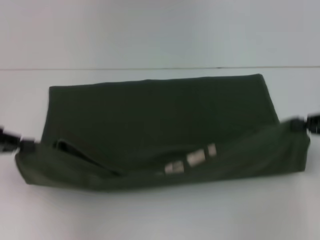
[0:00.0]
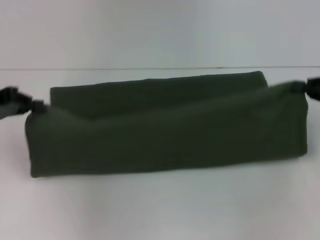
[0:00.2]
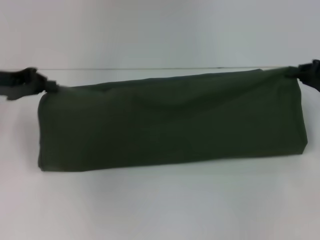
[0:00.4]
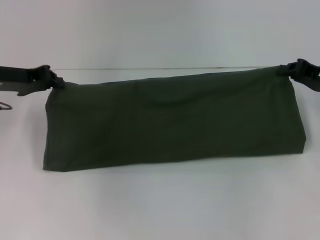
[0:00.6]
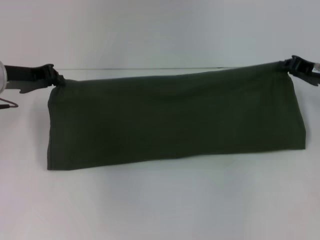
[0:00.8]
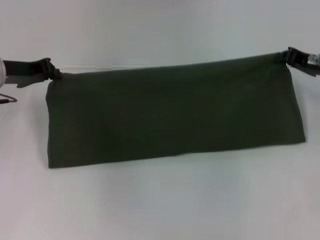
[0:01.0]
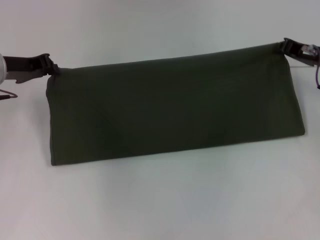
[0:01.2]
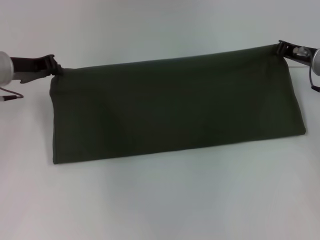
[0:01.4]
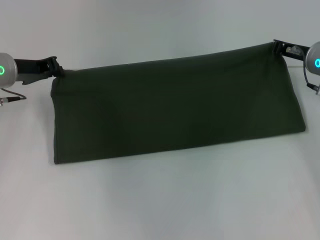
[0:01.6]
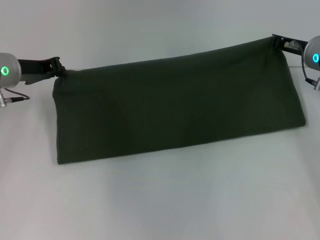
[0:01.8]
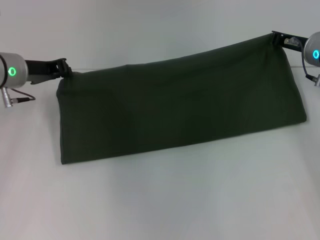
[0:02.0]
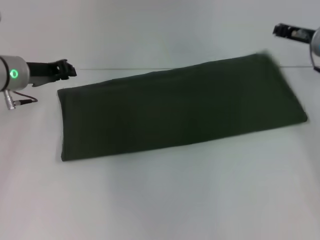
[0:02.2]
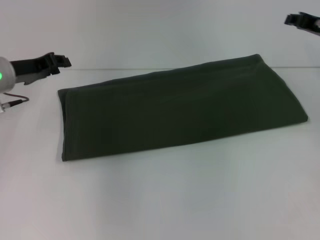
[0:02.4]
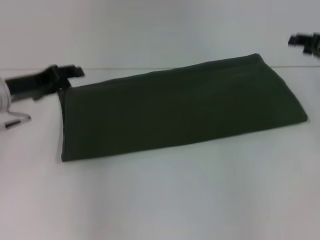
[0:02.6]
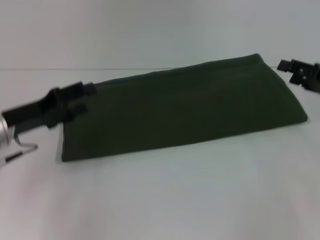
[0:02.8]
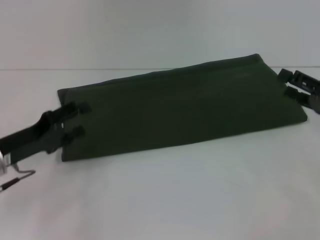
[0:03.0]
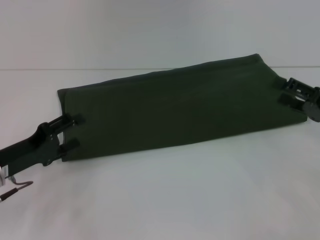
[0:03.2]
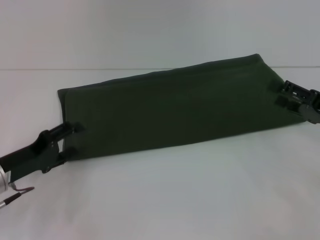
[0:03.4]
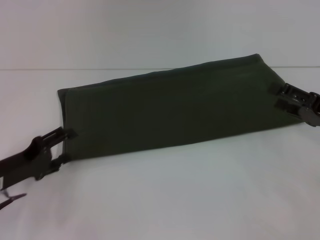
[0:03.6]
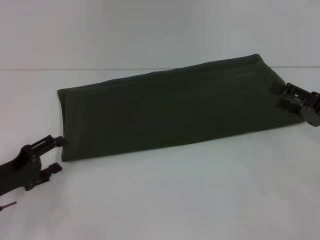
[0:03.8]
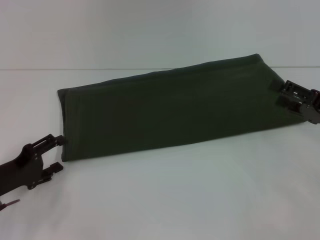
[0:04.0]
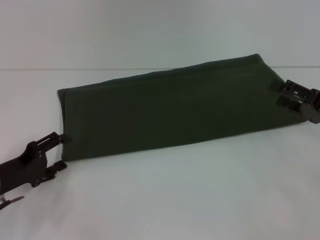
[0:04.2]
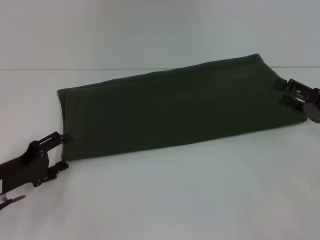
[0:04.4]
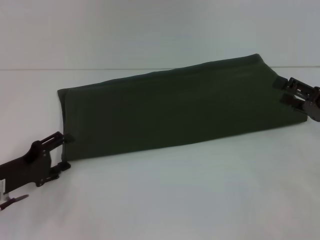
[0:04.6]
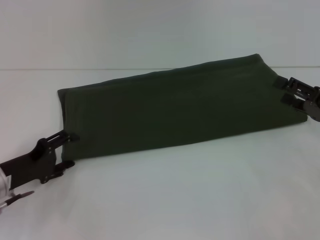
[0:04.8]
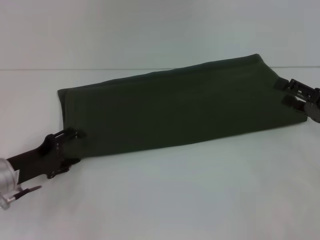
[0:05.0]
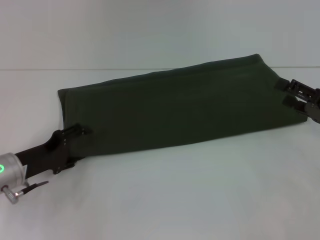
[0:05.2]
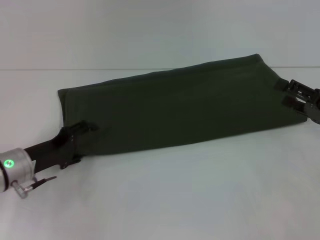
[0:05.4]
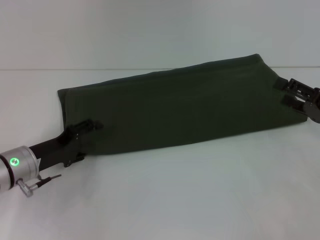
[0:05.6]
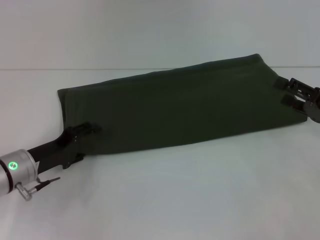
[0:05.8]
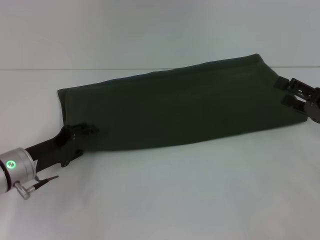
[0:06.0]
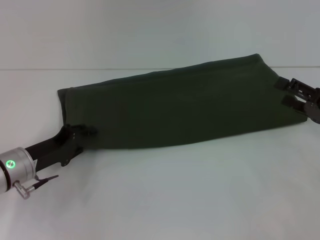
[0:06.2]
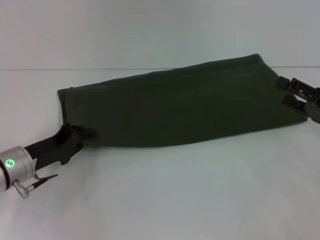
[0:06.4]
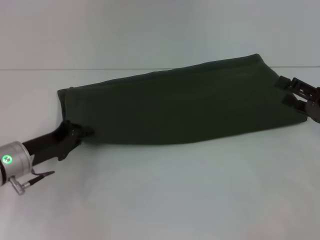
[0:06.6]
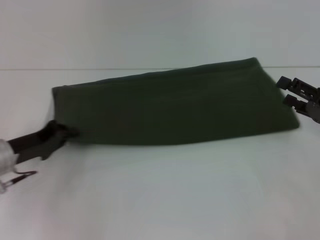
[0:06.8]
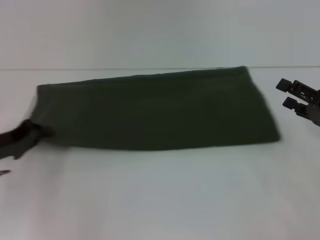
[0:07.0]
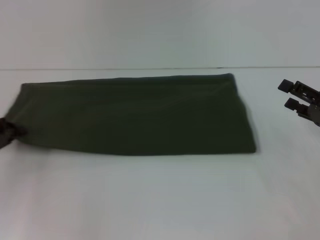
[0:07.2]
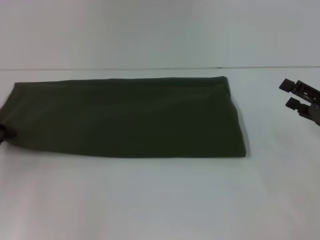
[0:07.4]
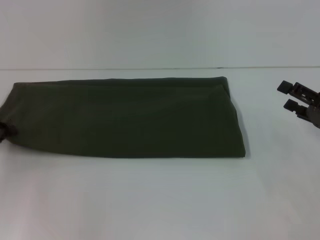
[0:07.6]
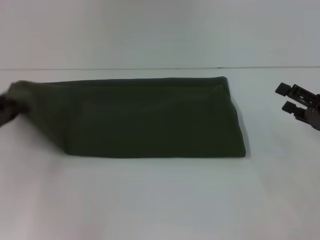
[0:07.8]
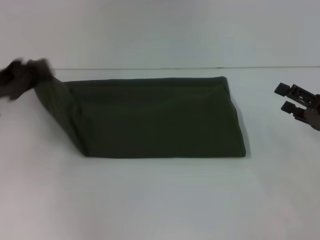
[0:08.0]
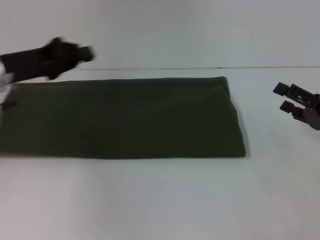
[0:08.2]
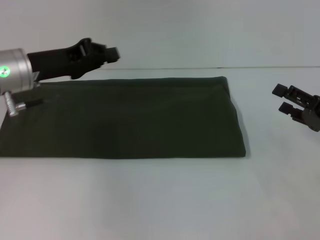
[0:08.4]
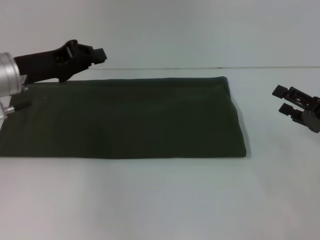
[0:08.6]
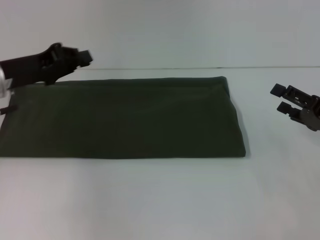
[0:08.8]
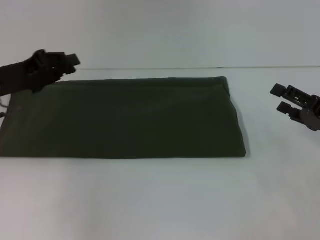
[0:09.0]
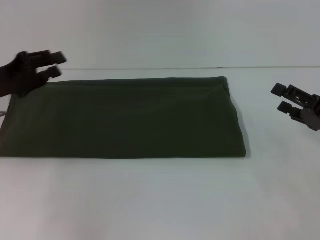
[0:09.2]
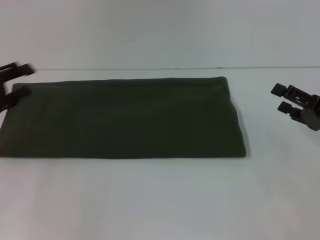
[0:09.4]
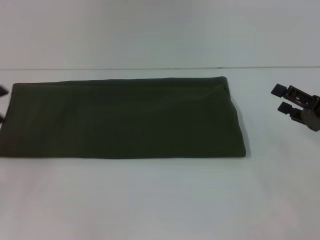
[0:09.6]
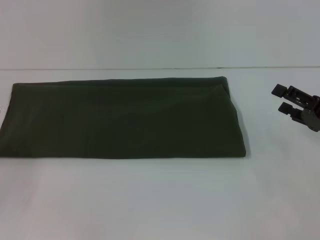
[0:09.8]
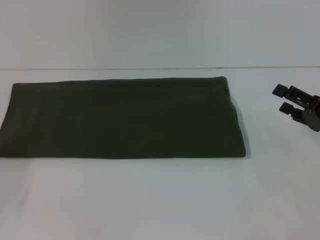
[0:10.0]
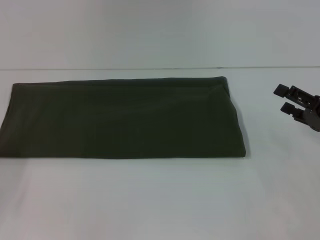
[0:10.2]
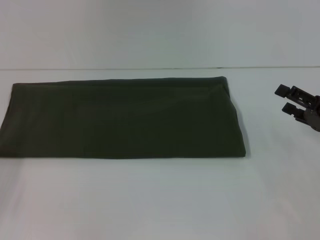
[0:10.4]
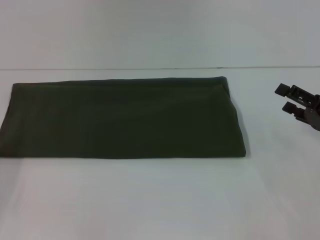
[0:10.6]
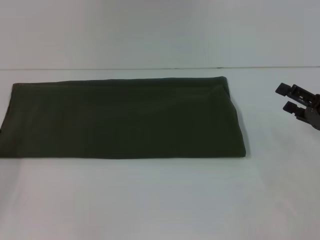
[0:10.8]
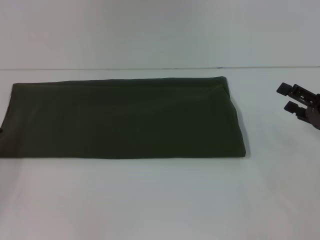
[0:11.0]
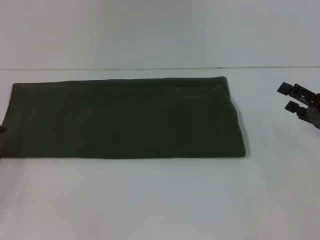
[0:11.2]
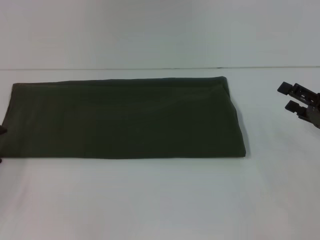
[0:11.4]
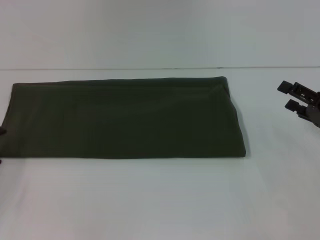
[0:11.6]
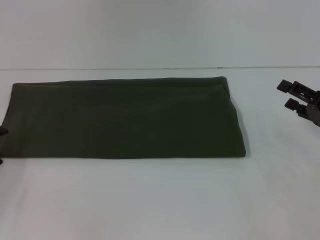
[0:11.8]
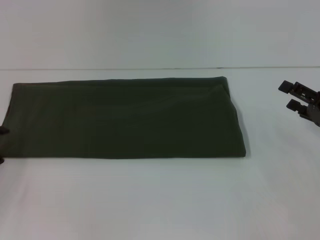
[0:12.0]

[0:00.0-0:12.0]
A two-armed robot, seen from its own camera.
Step, 0:00.0 to 0:02.2: Fold the clothes with your right hand.
0:00.0 to 0:01.6: The left gripper shifts some 15 cm forward and to the right. Meanwhile the right gripper goes about 15 cm forward and to the left.
0:01.6 to 0:03.0: The left gripper travels backward and downward by approximately 15 cm, and opens. The right gripper is displaced backward and to the right by approximately 15 cm, and opens its fingers.
0:03.0 to 0:04.4: The grippers make only small movements.
0:04.4 to 0:06.0: The left gripper shifts by roughly 5 cm.
0:06.0 to 0:07.6: The left gripper heads to the left, covering approximately 10 cm, and closes up.
0:07.6 to 0:09.0: The left gripper moves upward and to the right, some 10 cm.
0:09.0 to 0:10.4: The left gripper moves to the left, backward and downward, about 15 cm, and opens.
0:10.4 to 0:12.0: The grippers stay close to where they were, moving slightly.

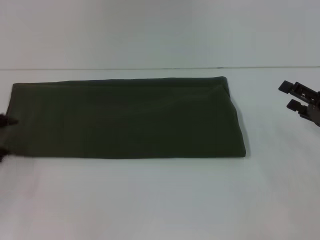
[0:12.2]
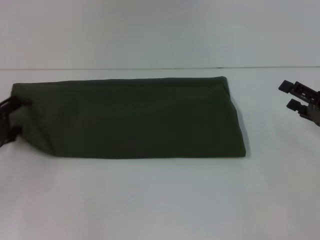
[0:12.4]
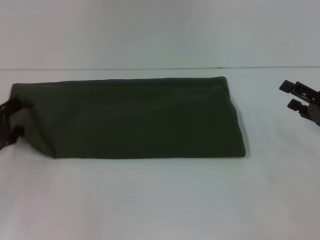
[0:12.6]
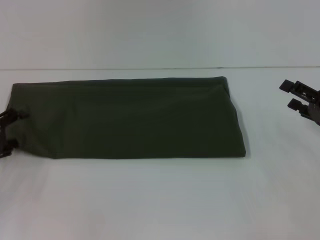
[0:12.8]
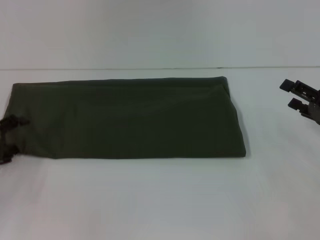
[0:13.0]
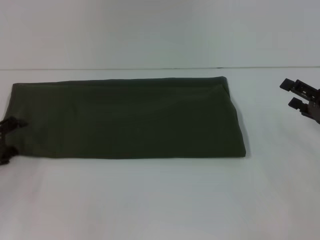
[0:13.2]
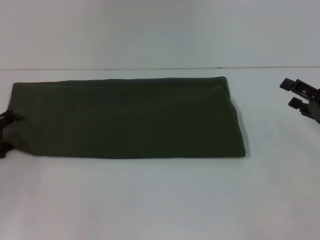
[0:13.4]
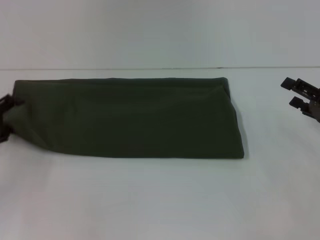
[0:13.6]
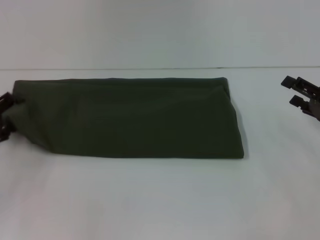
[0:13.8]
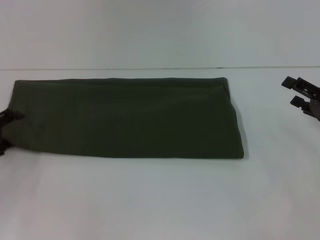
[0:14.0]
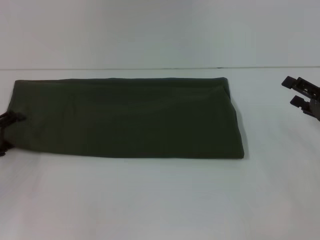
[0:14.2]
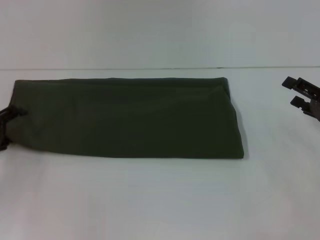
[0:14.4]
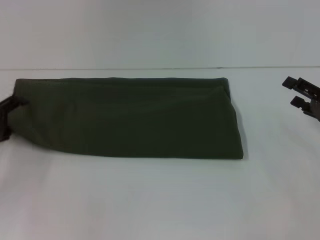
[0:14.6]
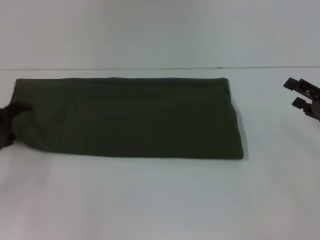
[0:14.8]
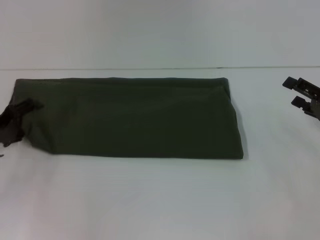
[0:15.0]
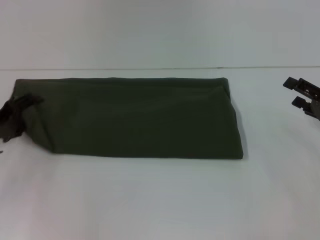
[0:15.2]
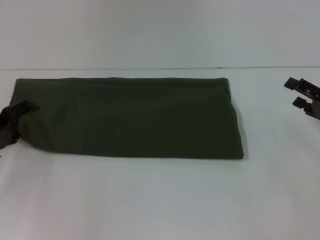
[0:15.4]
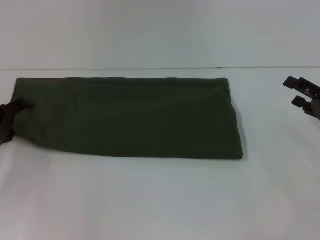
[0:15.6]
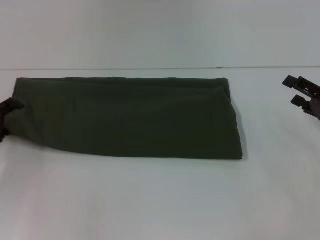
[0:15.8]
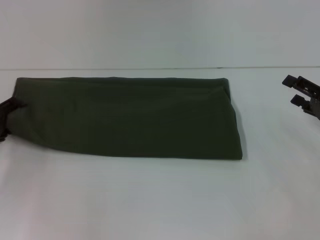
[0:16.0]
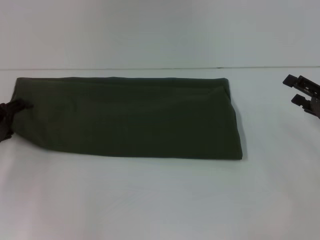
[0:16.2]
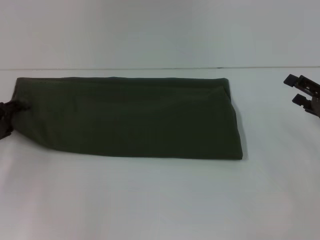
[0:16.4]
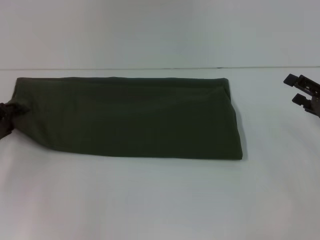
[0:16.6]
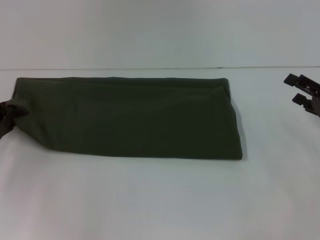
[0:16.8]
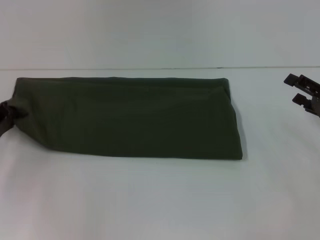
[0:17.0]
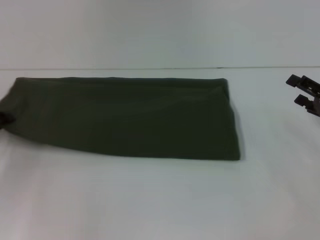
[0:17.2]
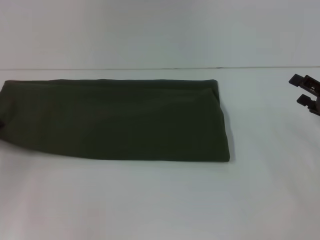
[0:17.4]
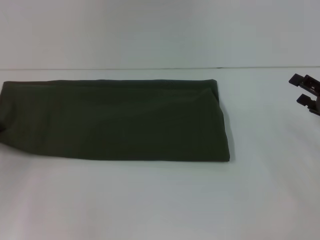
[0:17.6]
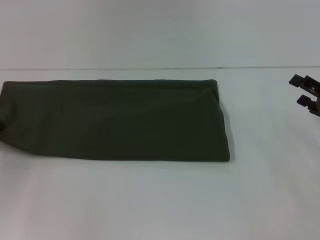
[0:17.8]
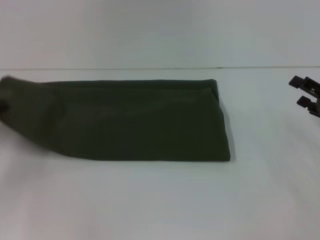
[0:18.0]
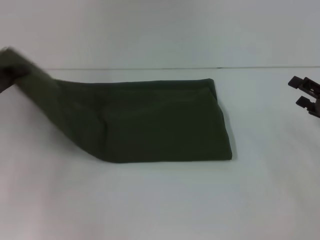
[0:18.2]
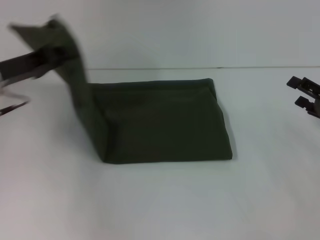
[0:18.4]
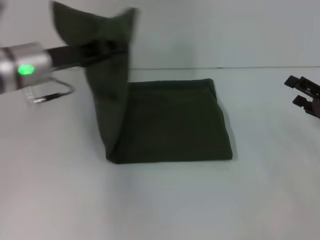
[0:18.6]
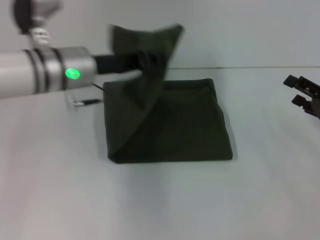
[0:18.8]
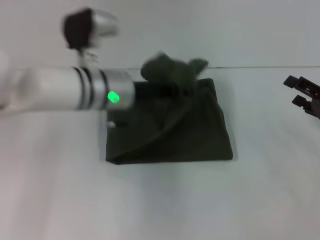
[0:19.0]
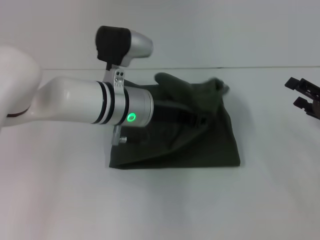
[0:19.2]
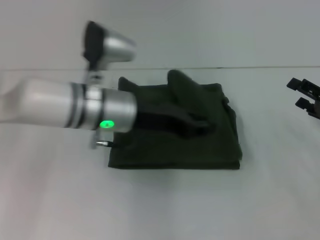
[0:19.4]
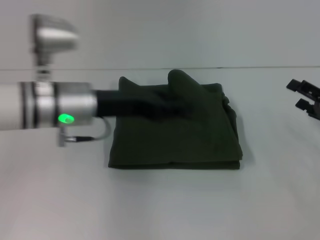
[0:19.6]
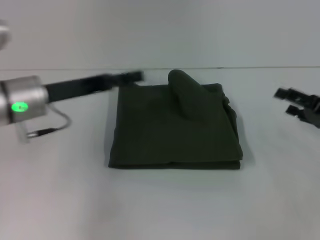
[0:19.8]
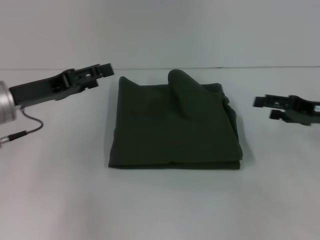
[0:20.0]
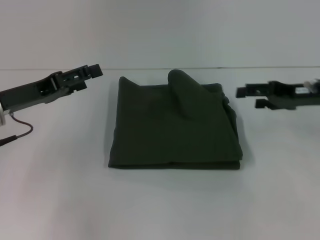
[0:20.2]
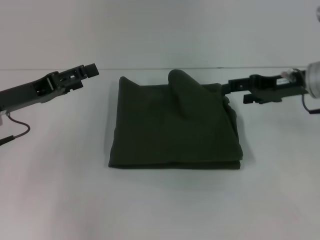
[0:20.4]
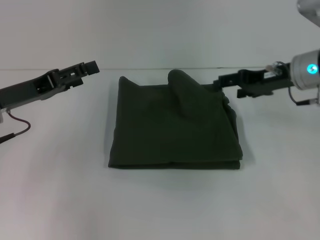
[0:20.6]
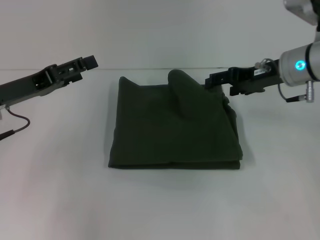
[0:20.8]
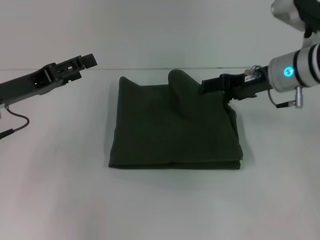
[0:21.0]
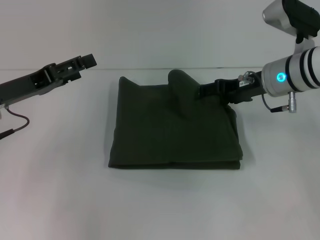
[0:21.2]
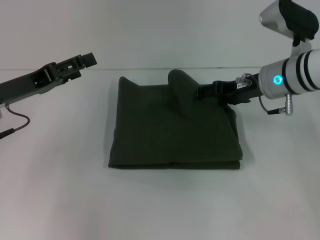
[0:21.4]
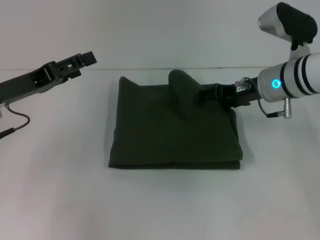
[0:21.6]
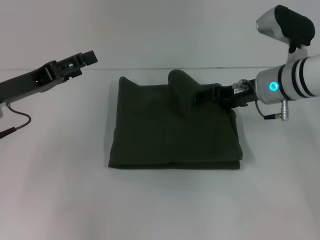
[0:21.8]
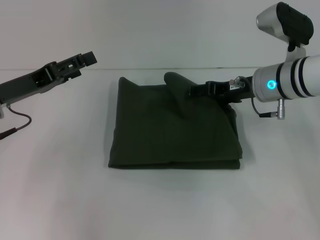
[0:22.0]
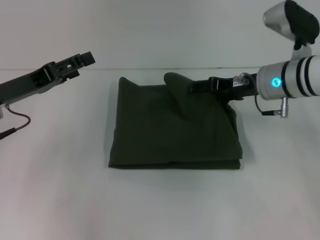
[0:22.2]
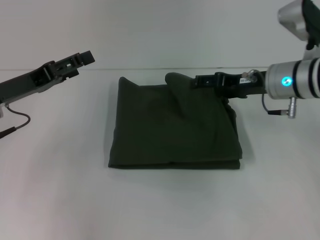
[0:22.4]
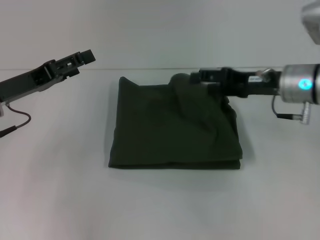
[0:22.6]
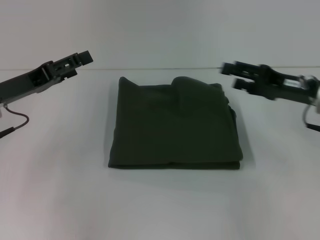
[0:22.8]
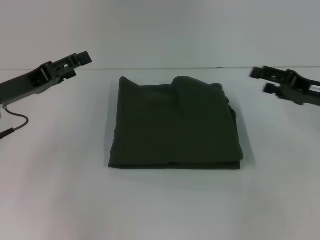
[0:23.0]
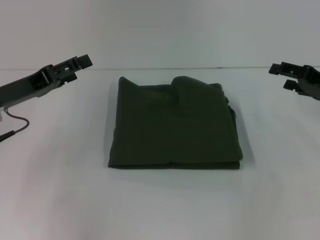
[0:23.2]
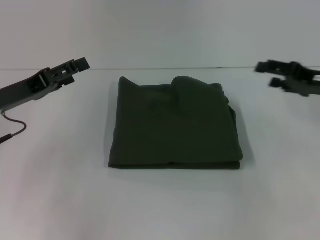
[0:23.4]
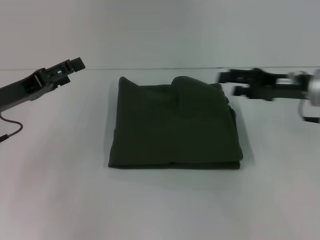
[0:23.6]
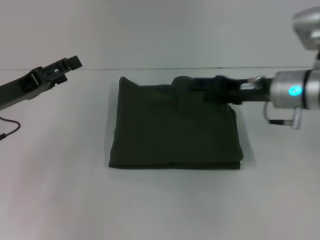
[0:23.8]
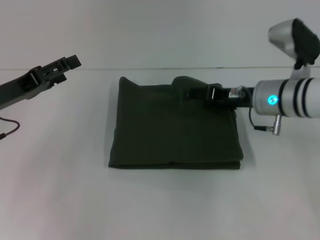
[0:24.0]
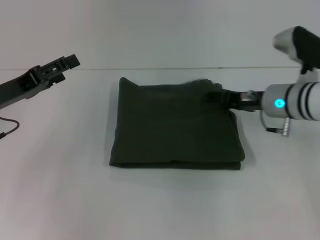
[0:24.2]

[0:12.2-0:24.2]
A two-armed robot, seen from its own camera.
Step, 0:12.2 to 0:19.6: Fold the clothes with your left hand.
0:12.2 to 0:16.6: The grippers move only a little.
0:16.6 to 0:18.2: The left gripper goes some 5 cm upward, and closes up.
0:18.2 to 0:19.8: The left gripper is displaced to the right by approximately 10 cm, and opens.
0:19.8 to 0:21.2: The left gripper heads to the left, covering approximately 5 cm, and opens. The right gripper shifts about 20 cm to the left, forward and upward.
0:22.6 to 0:24.2: The right gripper travels to the right and back again, approximately 10 cm each way.
